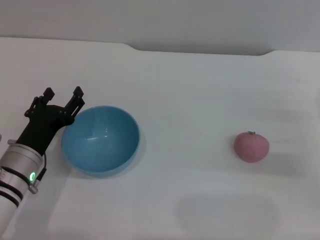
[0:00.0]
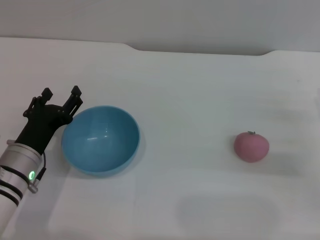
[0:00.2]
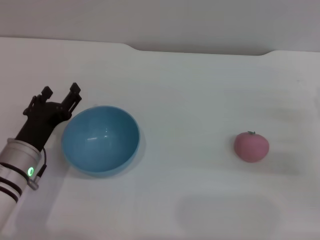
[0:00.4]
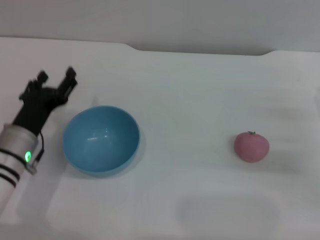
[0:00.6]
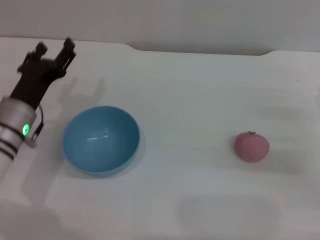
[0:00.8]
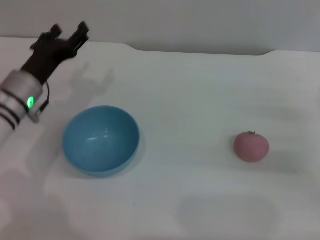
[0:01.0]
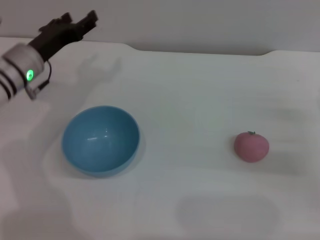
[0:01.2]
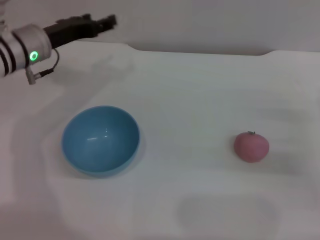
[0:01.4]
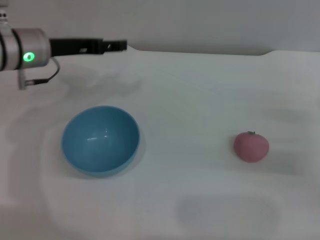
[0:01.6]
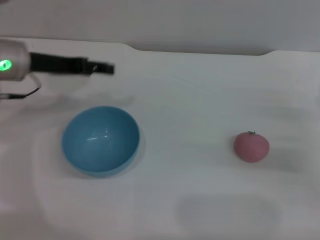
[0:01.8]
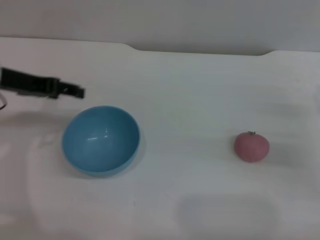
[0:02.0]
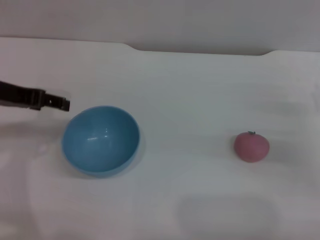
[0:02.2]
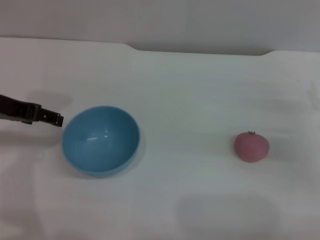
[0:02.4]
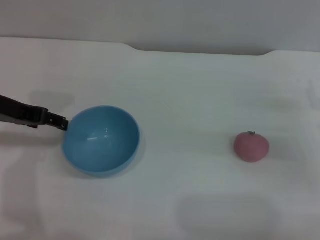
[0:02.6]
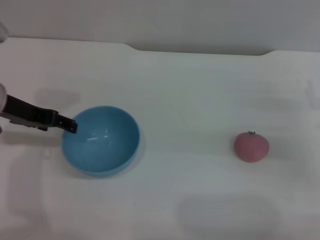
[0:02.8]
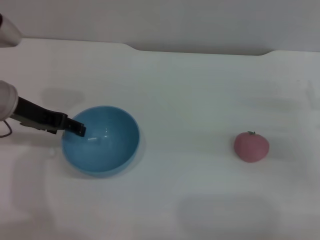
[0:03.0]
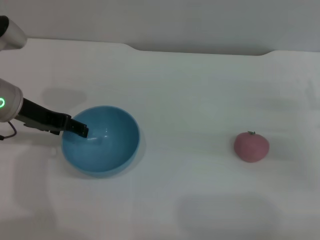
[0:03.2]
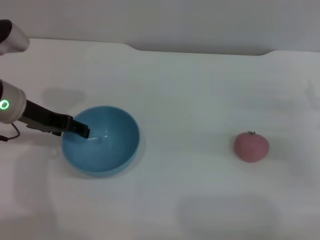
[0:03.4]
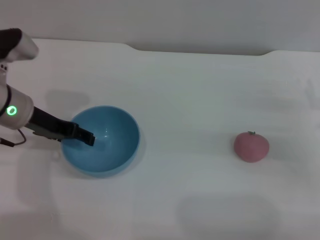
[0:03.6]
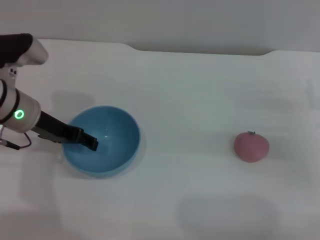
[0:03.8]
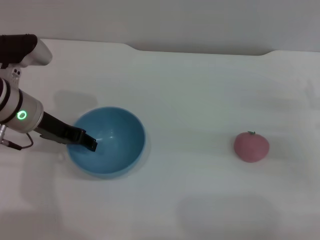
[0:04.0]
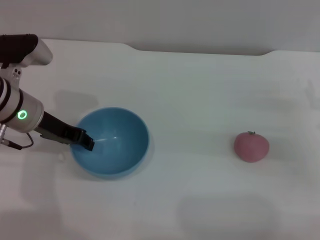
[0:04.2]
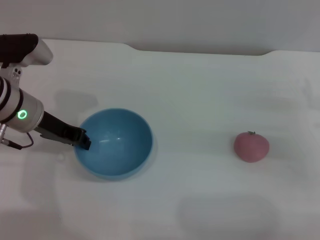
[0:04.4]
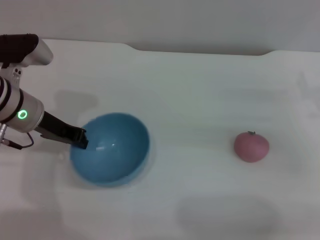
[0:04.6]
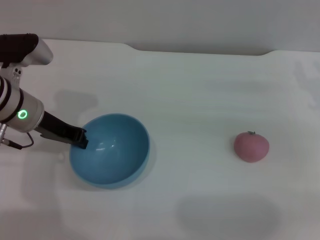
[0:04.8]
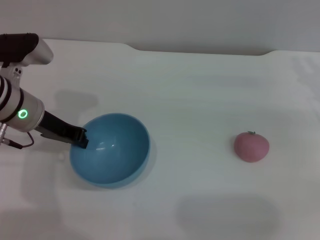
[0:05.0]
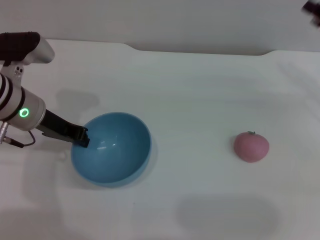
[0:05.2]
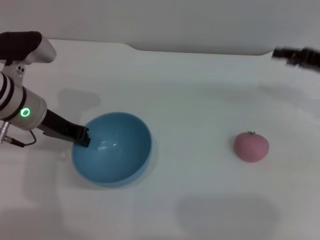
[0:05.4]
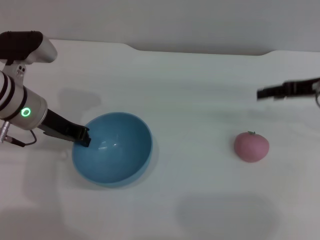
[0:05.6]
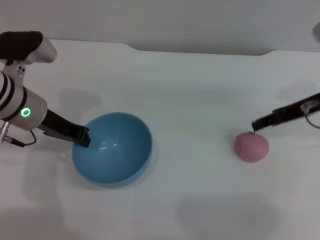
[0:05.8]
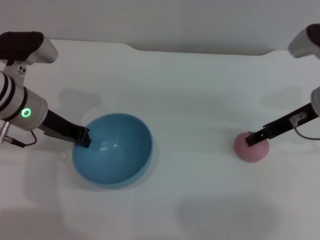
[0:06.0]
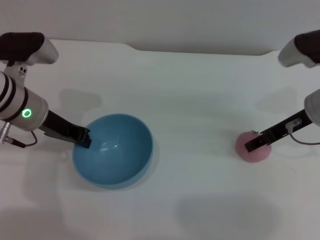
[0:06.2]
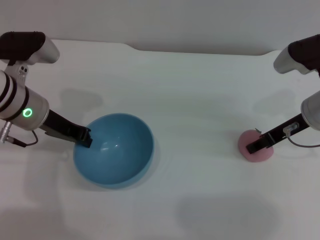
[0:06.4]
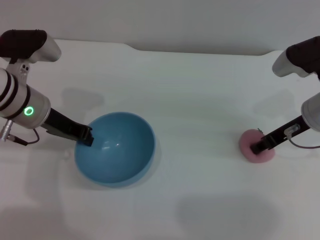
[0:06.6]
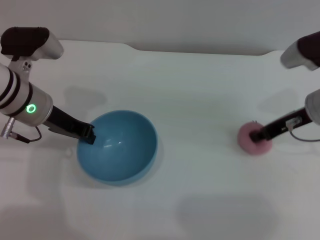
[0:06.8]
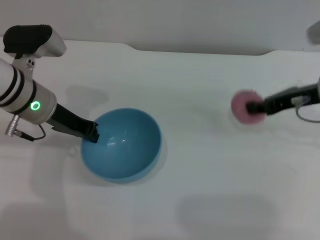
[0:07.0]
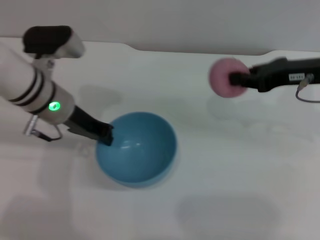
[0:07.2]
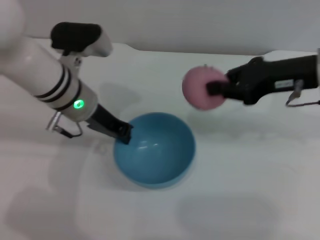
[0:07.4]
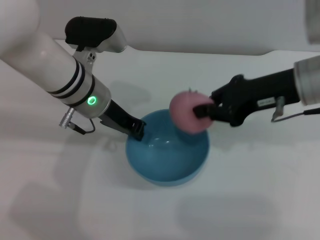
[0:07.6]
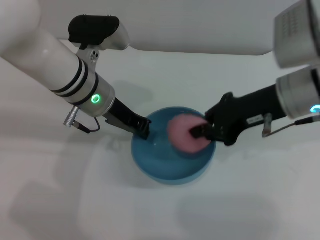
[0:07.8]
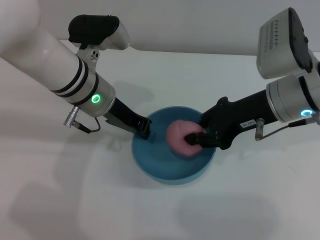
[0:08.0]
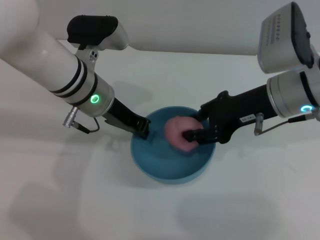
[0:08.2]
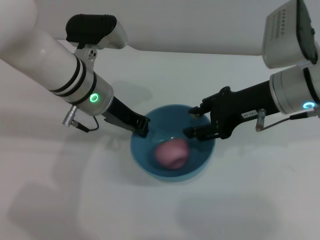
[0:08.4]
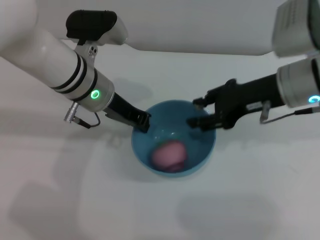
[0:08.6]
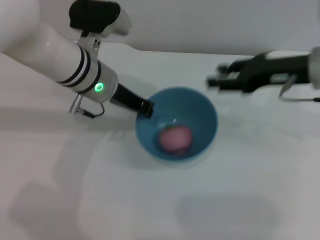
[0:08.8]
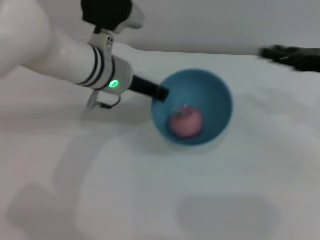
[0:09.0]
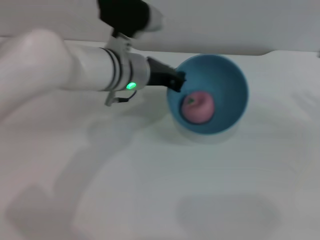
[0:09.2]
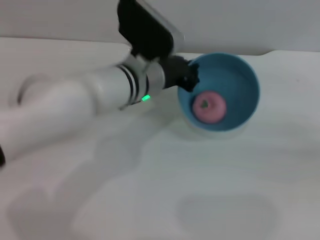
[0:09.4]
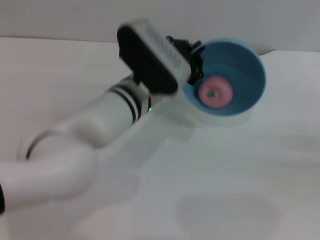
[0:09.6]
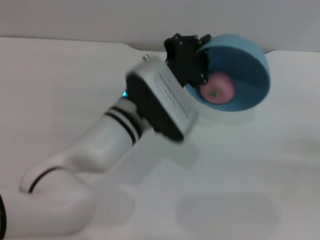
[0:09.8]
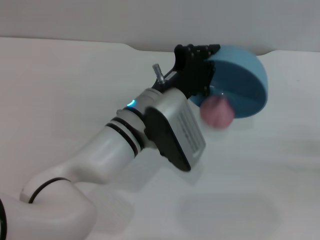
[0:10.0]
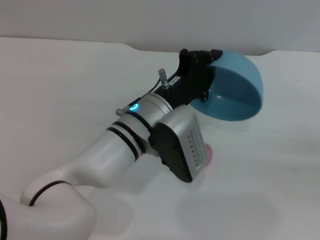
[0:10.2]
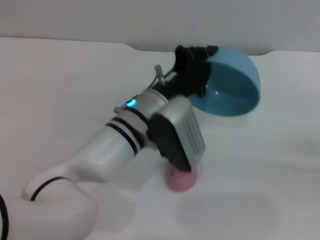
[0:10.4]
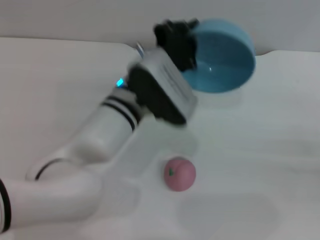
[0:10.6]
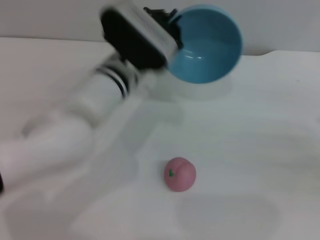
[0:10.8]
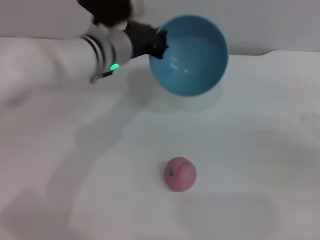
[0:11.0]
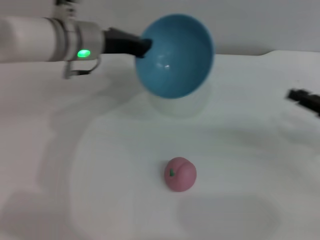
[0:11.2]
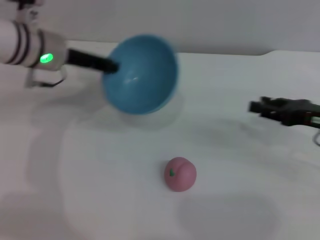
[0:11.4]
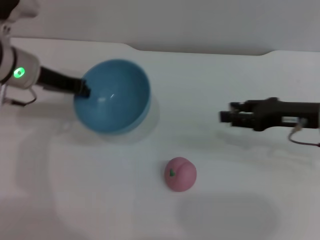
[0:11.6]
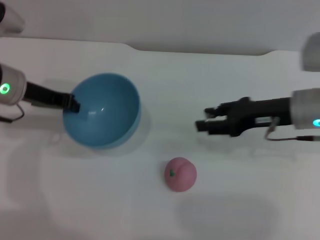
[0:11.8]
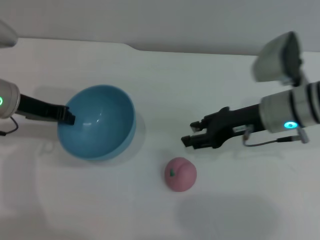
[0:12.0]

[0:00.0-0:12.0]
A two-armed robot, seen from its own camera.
Task of the whole recording: put the peach into the blue bowl and pour it out repeatedly.
Step, 0:00.0 to 0:04.8: Pick up the bowl with the left gripper.
Step, 0:05.2 to 0:06.8: Pick up the peach with the right gripper.
Step, 0:07.0 to 0:08.6: Place the peach into the bowl.
Step, 0:08.8 to 0:10.2: Pour the peach out of bowl.
0:00.0 to 0:01.6: The left gripper heads forward and upward, covering roughly 20 cm.
0:01.6 to 0:03.0: The left gripper travels backward by some 5 cm.
0:03.0 to 0:04.4: The left gripper closes up.
0:04.4 to 0:06.0: The left gripper closes its fingers. Meanwhile the right gripper goes roughly 10 cm to the left, upward and forward.
0:06.0 to 0:07.6: The right gripper heads upward, covering about 5 cm, and closes up; the left gripper heads to the right, covering roughly 10 cm.
0:07.6 to 0:09.0: The right gripper is displaced to the right by approximately 10 cm, and opens.
0:09.0 to 0:10.4: The right gripper shifts approximately 20 cm backward, to the right and downward, while the left gripper moves backward, to the right and downward, some 10 cm.
0:10.4 to 0:12.0: The right gripper shifts approximately 25 cm to the left and forward. The left gripper moves to the left, approximately 20 cm.

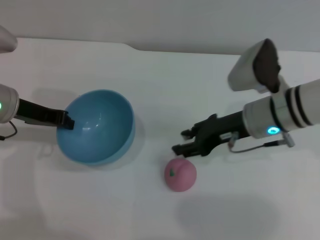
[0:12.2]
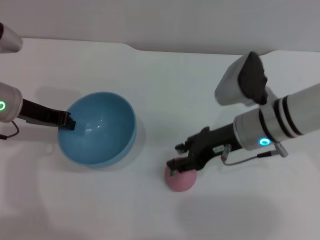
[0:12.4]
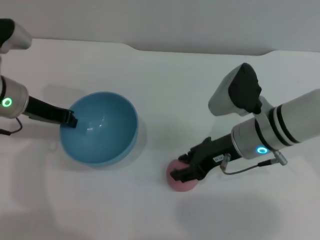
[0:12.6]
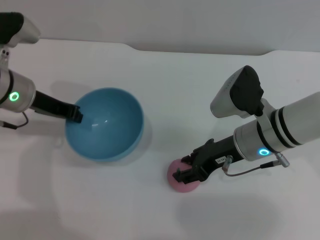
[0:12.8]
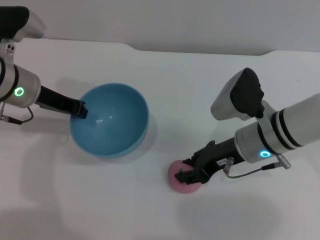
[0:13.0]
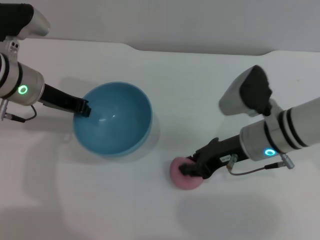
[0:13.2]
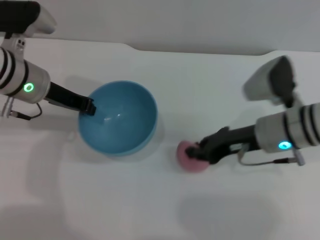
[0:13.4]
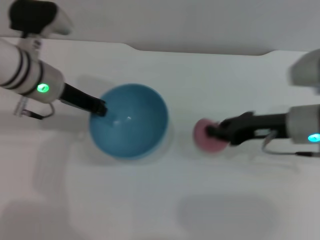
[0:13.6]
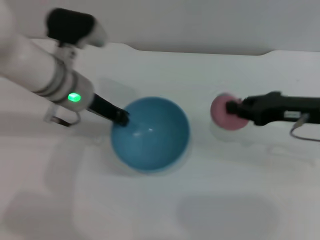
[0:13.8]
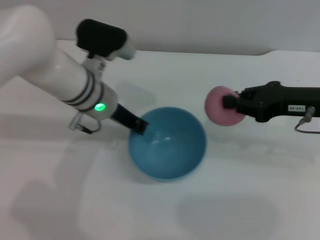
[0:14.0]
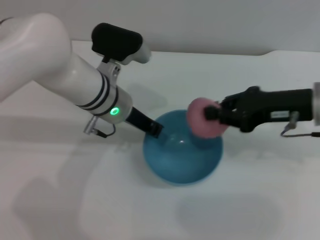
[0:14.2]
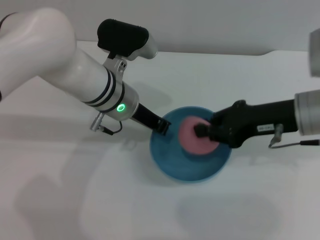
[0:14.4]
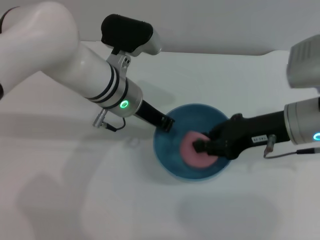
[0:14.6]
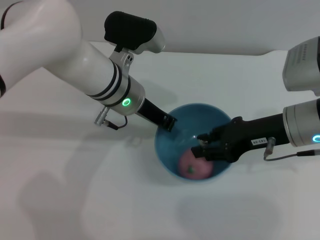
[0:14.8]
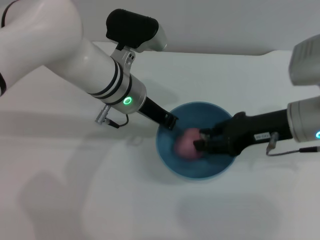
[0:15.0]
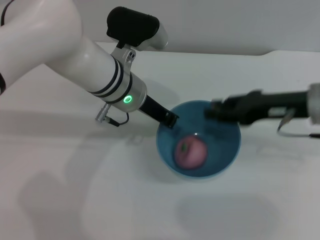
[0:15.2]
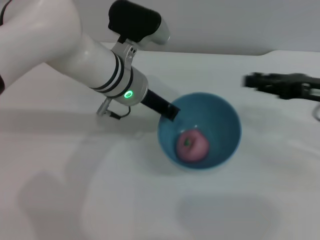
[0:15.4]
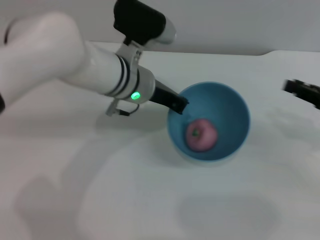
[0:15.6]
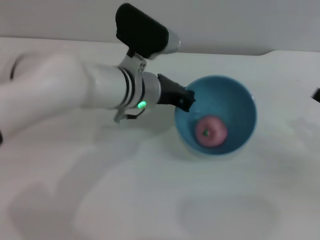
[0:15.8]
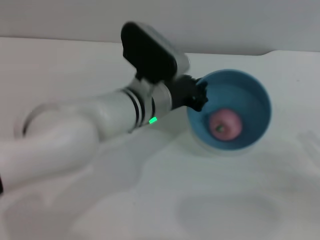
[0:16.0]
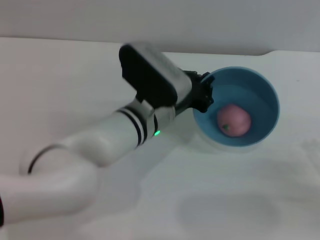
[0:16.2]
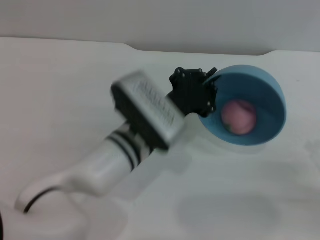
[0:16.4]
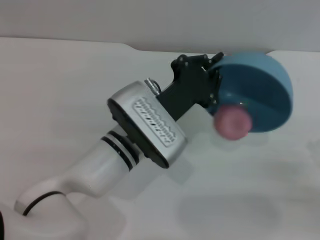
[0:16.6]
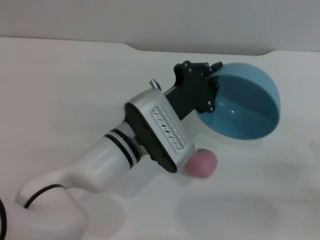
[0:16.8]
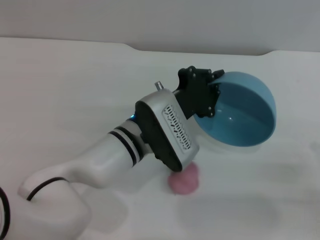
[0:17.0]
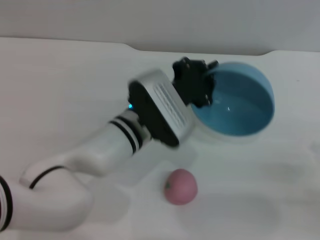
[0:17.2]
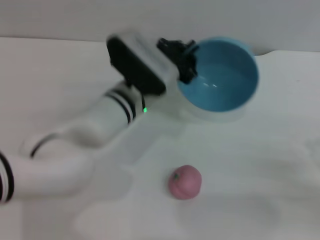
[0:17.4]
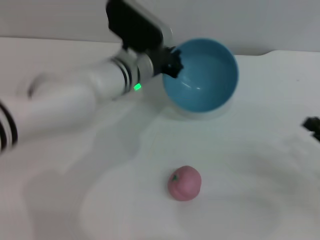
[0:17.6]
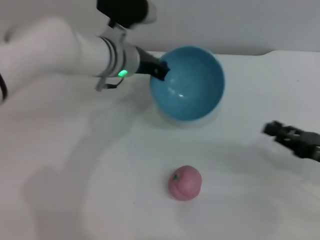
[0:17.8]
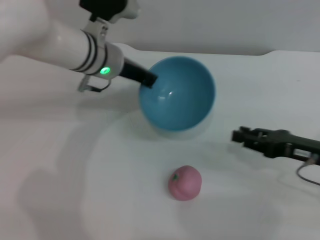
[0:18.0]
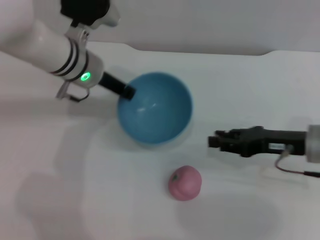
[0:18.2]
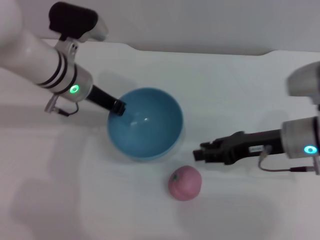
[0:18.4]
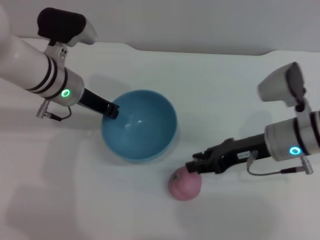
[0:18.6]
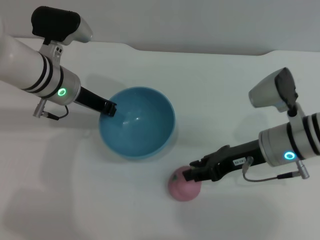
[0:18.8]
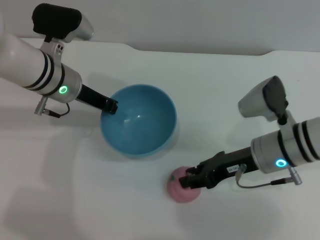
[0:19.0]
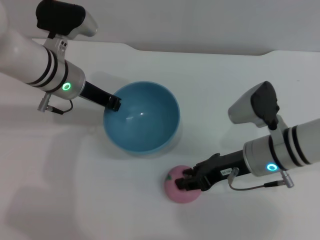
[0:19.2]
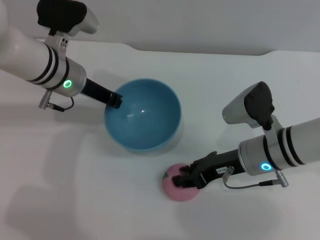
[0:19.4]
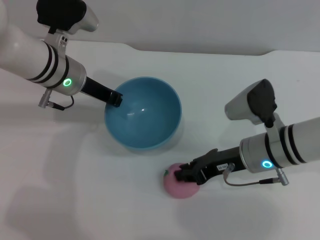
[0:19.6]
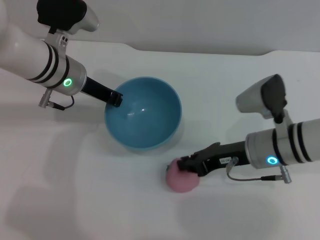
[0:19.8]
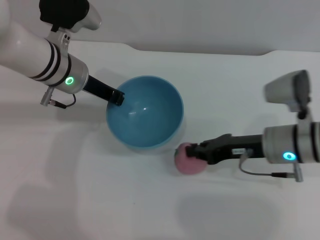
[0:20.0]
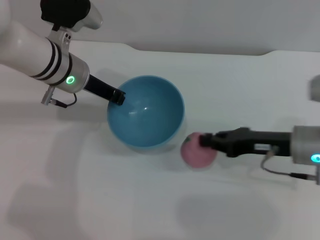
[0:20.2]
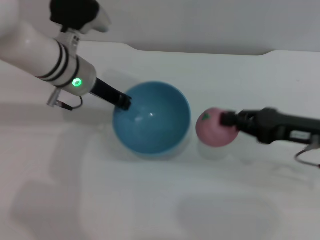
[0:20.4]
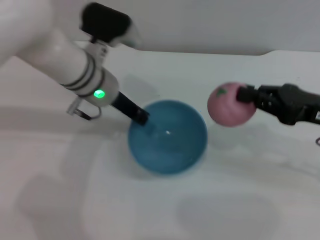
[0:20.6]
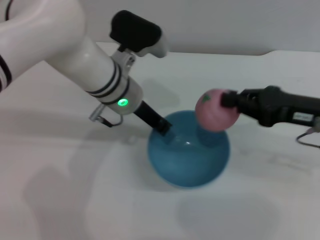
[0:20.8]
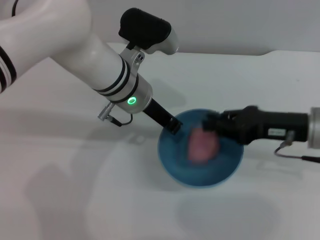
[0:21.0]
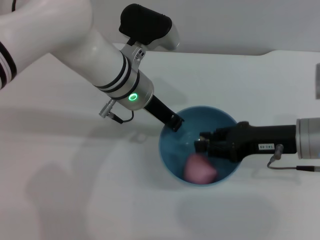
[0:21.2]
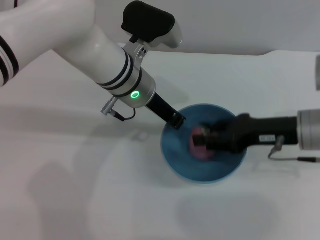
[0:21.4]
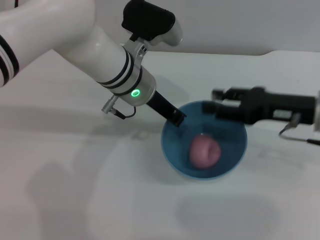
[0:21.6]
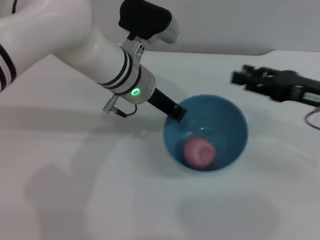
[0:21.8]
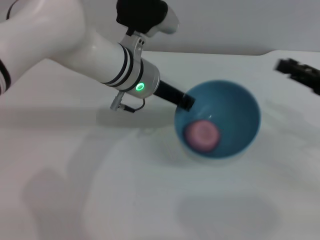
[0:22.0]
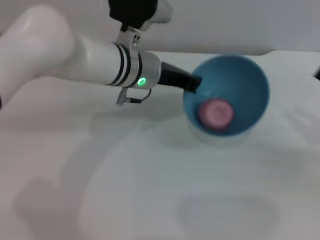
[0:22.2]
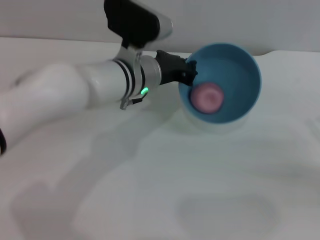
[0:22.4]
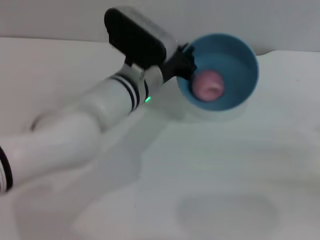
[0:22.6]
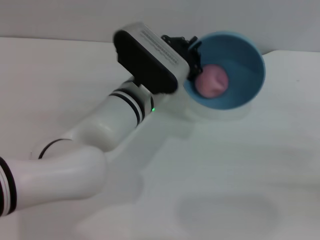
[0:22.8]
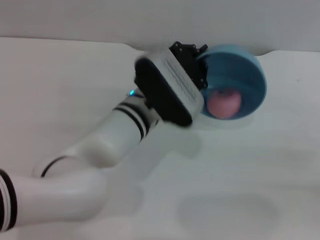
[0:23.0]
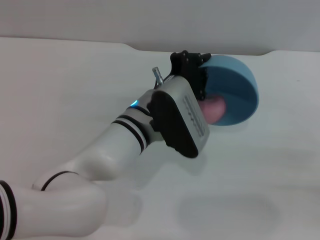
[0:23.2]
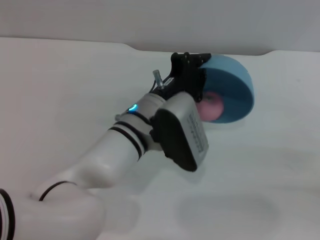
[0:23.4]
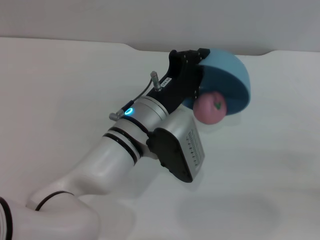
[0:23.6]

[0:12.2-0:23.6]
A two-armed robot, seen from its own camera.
Task of the whole recording: put the peach into the blue bowl and pour it out repeatedly.
Step, 0:13.8 to 0:15.2: Place the peach into the bowl.
Step, 0:15.4 to 0:17.0: Pour the peach out of bowl.
Step, 0:17.2 to 0:20.0: Pick up the peach with the right gripper.
Step, 0:20.2 to 0:21.4: Place the peach into the bowl.
0:12.2 to 0:13.6: The two grippers go approximately 5 cm to the right. The right gripper closes.
0:13.6 to 0:15.0: The right gripper opens. Meanwhile the left gripper goes roughly 10 cm to the right.
0:15.0 to 0:16.4: The right gripper travels to the right, backward and downward by some 25 cm. The left gripper travels backward and downward by approximately 10 cm.
0:16.4 to 0:17.8: The left gripper is displaced forward by approximately 15 cm; the right gripper moves forward and to the left, some 10 cm.
0:17.8 to 0:19.4: The right gripper is displaced to the left and forward by approximately 15 cm; the left gripper heads to the left, covering some 10 cm.
0:19.4 to 0:20.8: The left gripper is displaced to the right by approximately 10 cm. The right gripper heads to the right and upward, covering approximately 15 cm.
0:20.8 to 0:22.2: The right gripper is displaced to the right by some 10 cm, and opens up.
0:22.2 to 0:23.6: The left gripper goes about 10 cm backward and downward, while the right gripper goes some 5 cm backward.
